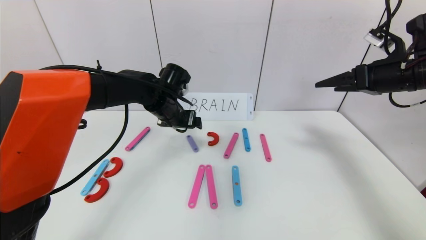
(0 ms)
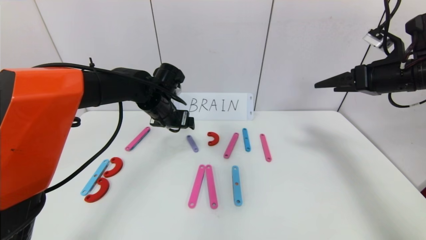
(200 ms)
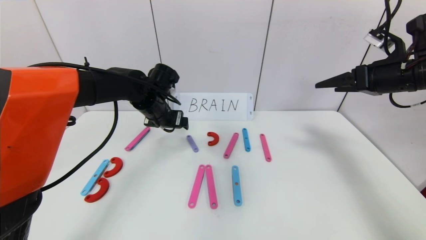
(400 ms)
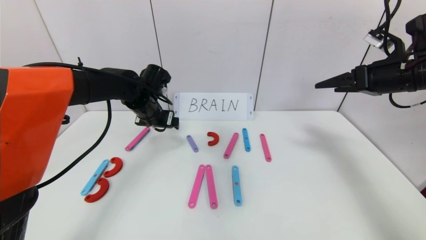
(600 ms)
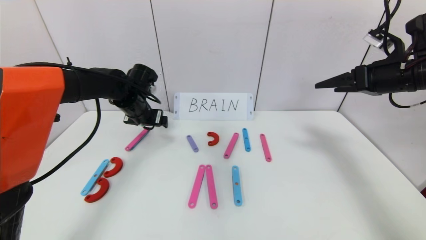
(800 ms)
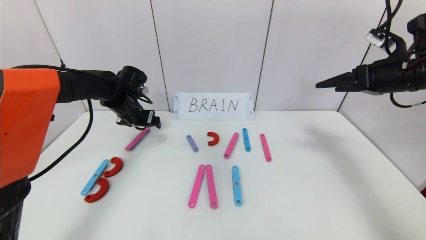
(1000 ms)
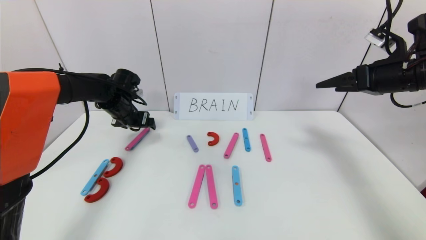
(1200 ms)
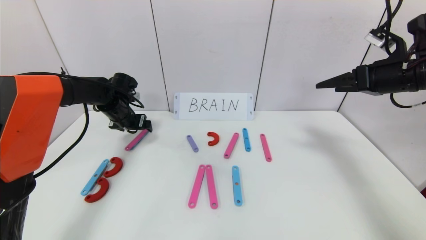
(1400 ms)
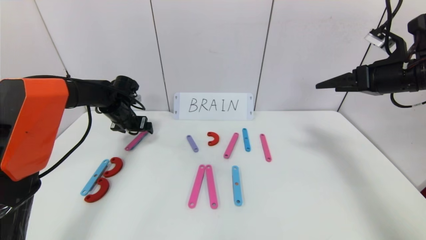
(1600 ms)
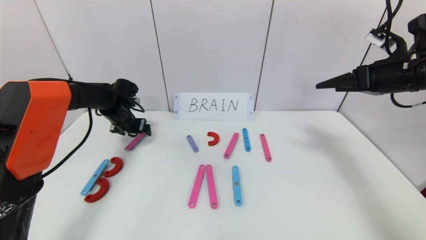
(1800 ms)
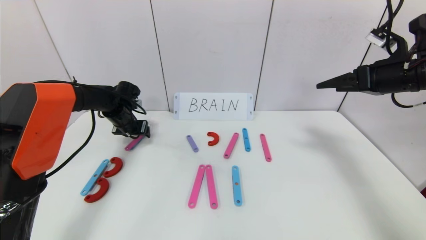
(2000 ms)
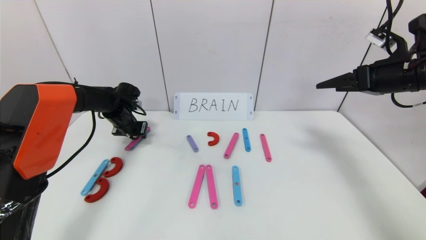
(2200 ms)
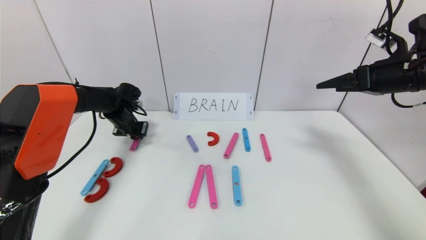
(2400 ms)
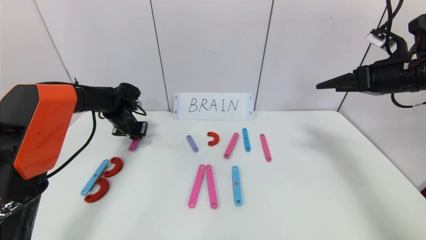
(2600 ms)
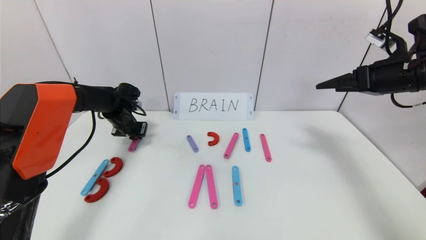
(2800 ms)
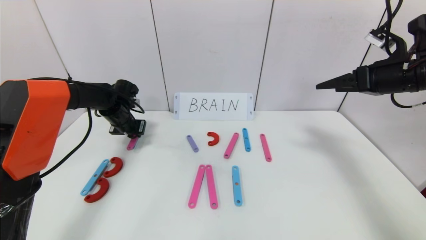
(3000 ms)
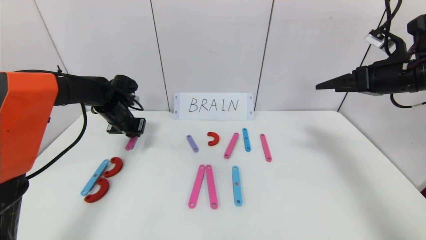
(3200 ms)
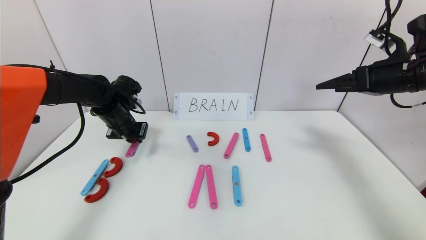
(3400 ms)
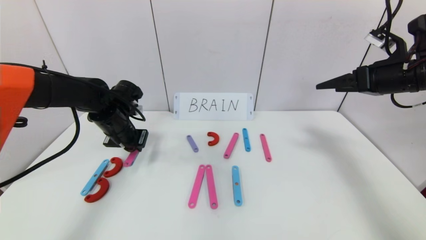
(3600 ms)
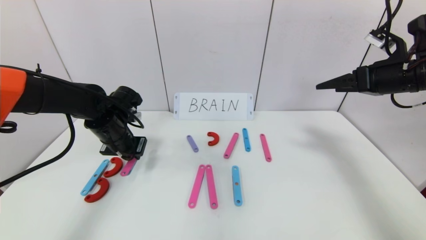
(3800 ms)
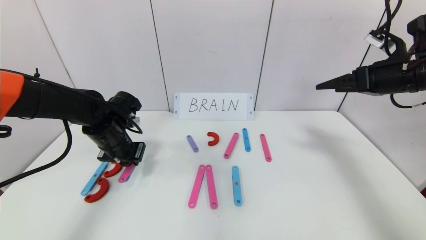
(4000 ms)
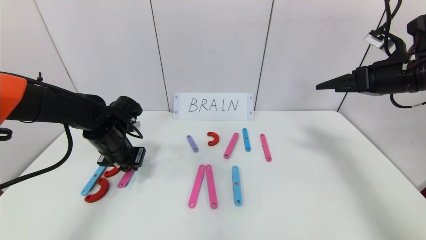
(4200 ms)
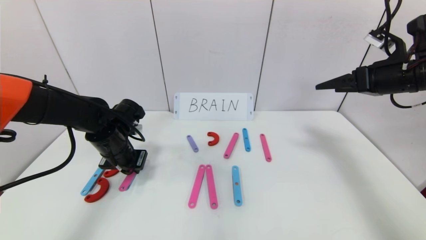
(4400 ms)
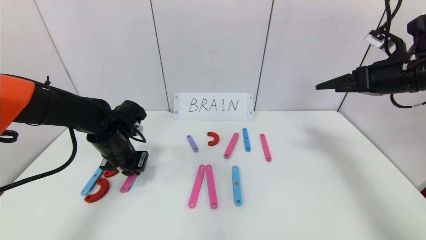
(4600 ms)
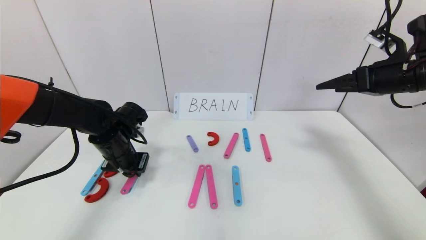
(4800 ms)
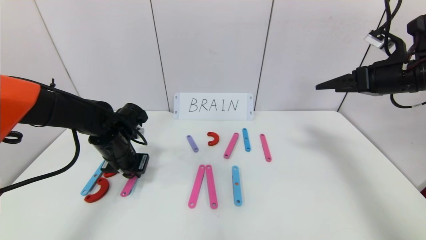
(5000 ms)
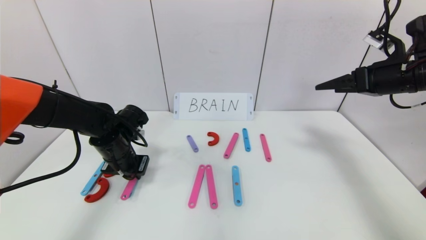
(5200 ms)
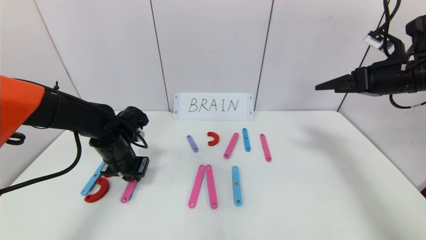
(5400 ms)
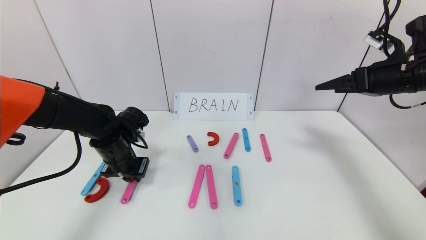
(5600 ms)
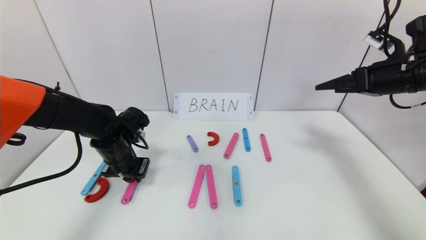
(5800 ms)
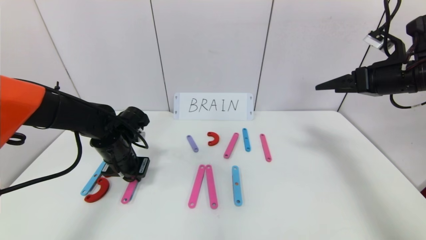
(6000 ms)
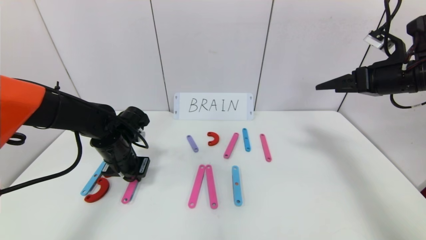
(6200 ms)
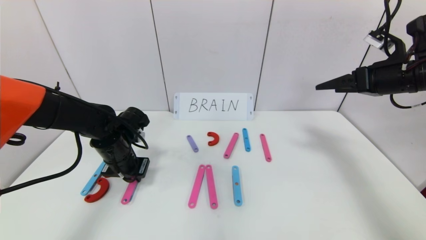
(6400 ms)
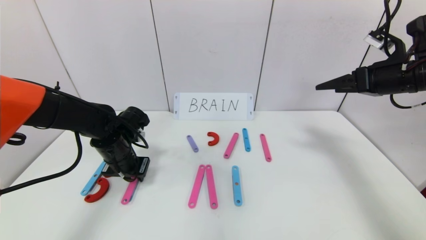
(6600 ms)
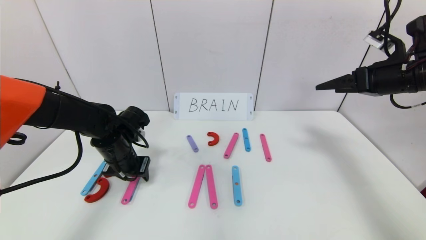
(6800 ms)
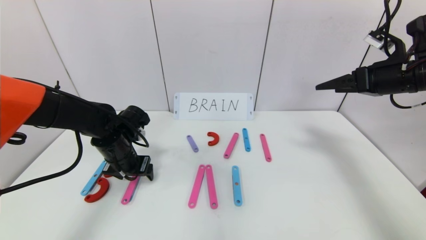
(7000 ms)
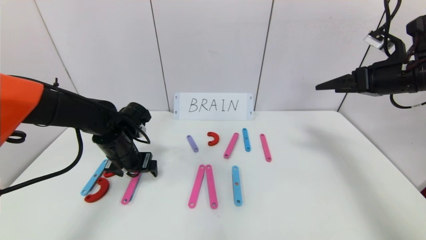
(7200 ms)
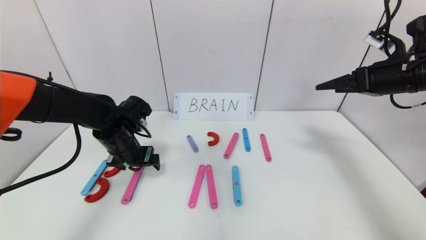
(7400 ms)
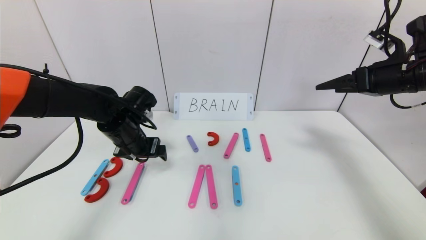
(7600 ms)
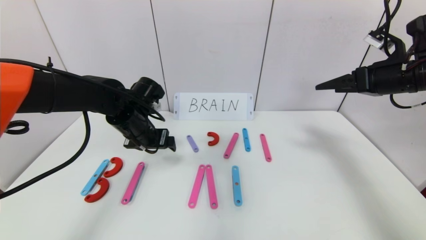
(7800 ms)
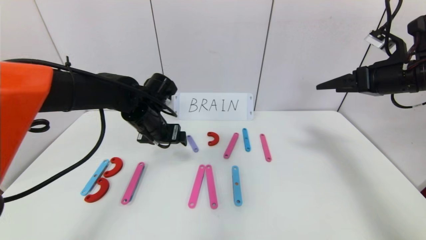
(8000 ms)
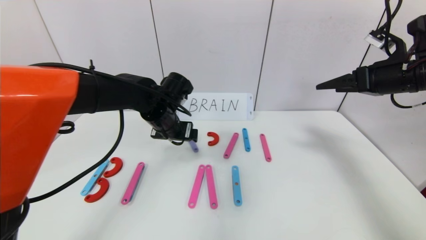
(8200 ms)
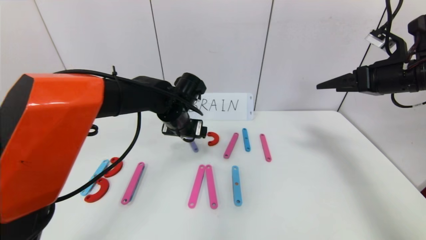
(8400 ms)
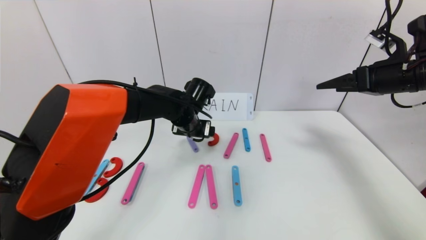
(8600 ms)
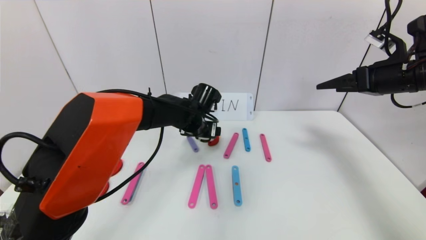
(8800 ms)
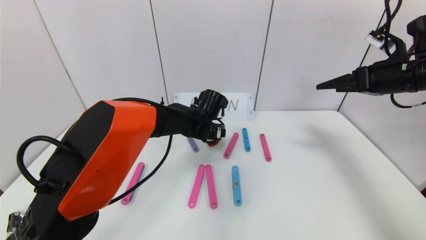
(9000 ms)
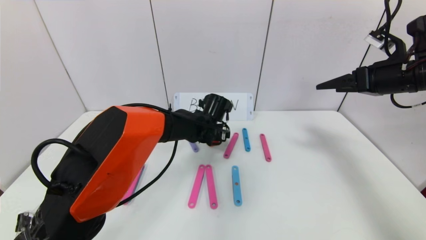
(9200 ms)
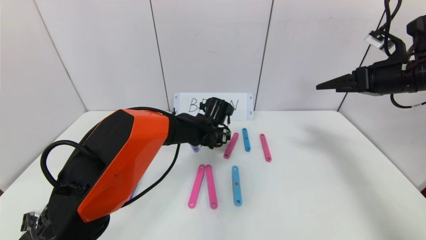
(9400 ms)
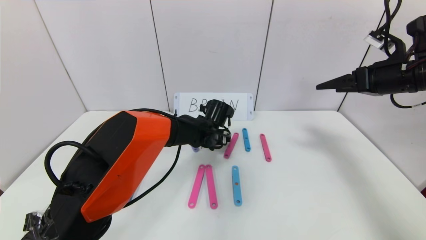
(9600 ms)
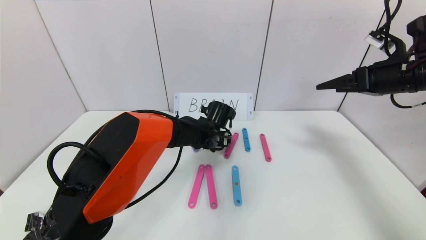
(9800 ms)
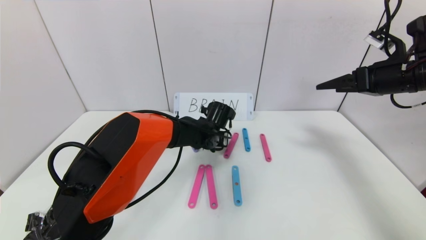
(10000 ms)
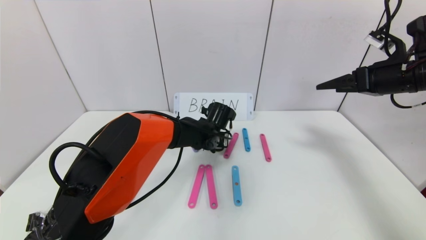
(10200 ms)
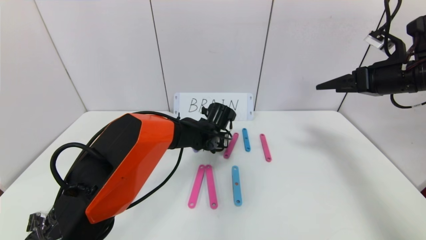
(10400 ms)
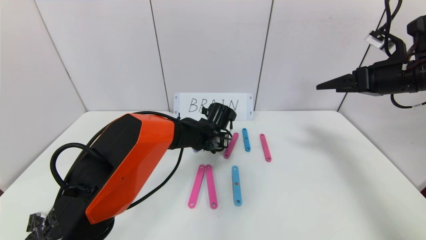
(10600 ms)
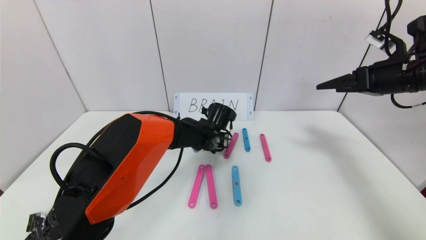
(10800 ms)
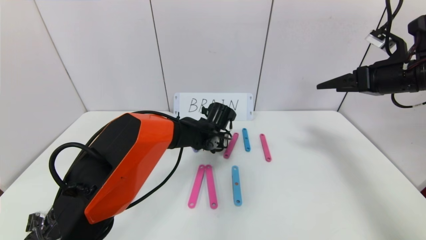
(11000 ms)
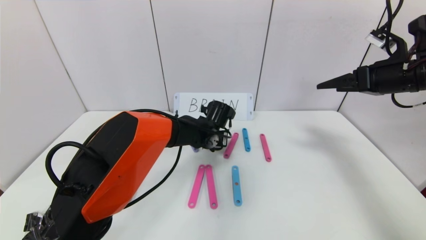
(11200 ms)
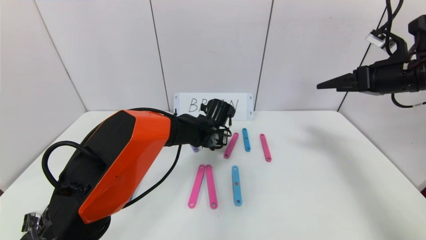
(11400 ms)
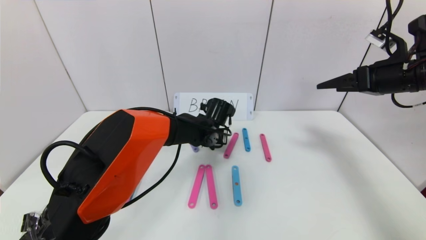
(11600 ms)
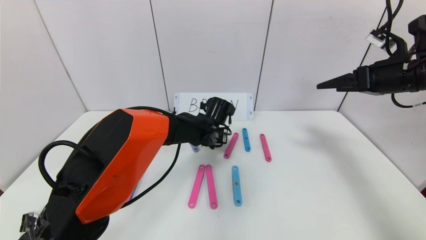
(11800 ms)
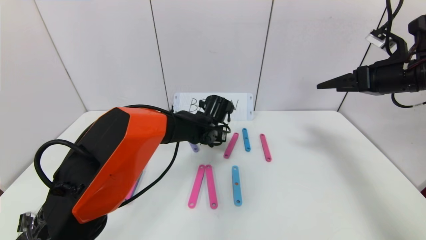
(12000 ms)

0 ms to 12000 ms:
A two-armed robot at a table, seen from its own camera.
Task of the whole recording: rearrange the word baai as brain.
0 ms to 1600 ms: The left gripper shifts roughly 15 cm to the left.
1600 ms to 3000 ms: The left gripper closes.
3000 ms to 4400 ms: The left gripper heads backward, covering approximately 10 cm.
4400 ms to 6000 ms: The grippers stay close to where they were, moving slightly.
6000 ms to 7600 ms: The left gripper ends up roughly 5 cm from where it was, and opens up.
7600 ms to 9000 ms: The left gripper moves to the right and forward, about 20 cm.
9000 ms to 10400 ms: The left gripper closes up.
10400 ms to 12000 ms: The grippers move only a little.

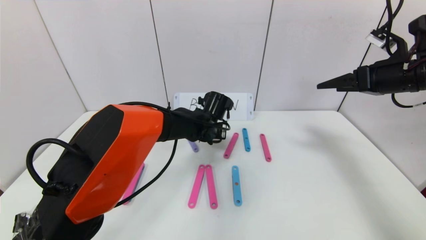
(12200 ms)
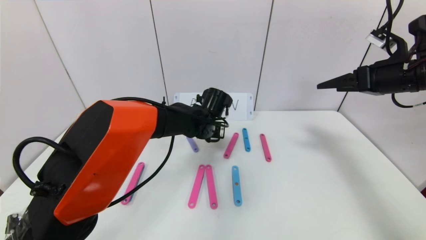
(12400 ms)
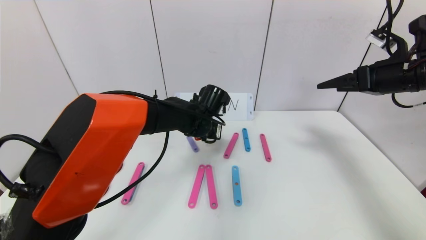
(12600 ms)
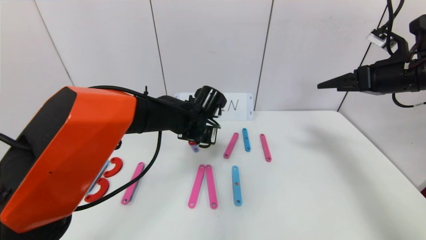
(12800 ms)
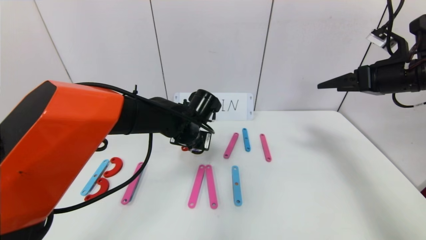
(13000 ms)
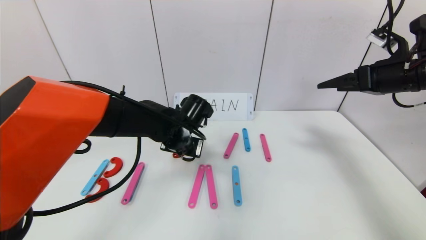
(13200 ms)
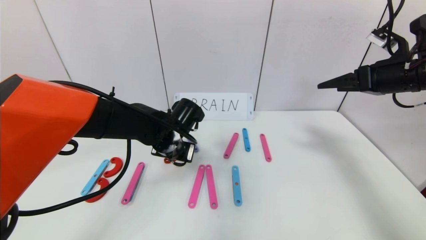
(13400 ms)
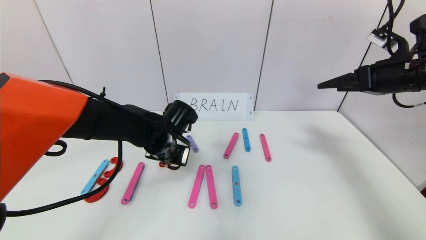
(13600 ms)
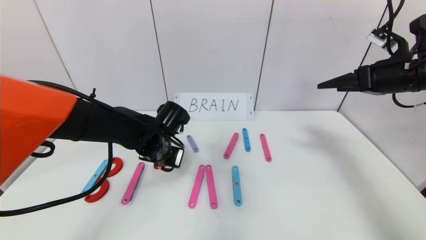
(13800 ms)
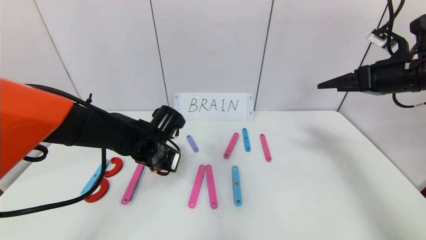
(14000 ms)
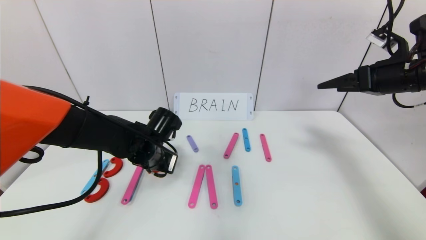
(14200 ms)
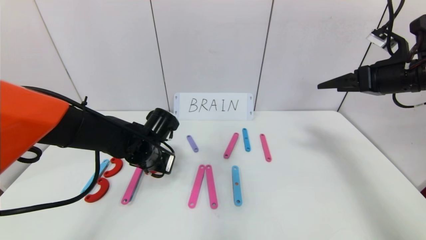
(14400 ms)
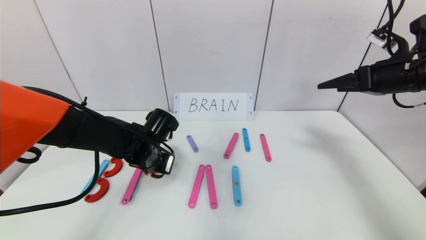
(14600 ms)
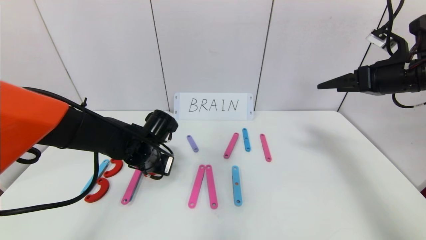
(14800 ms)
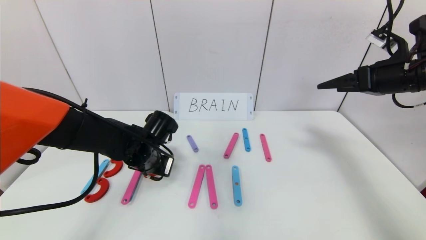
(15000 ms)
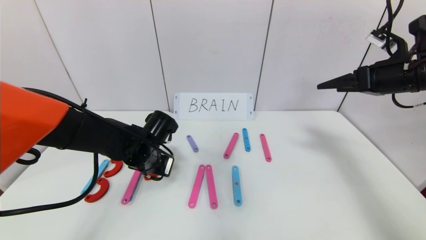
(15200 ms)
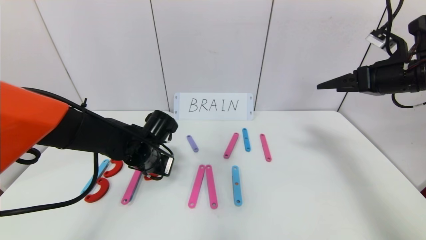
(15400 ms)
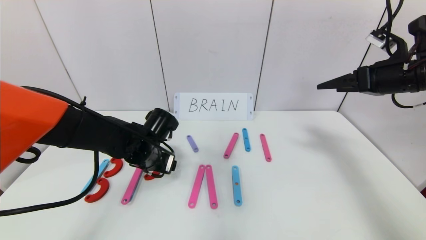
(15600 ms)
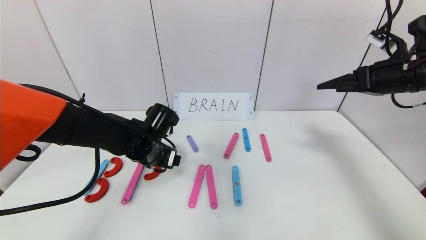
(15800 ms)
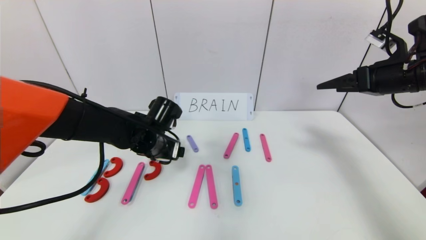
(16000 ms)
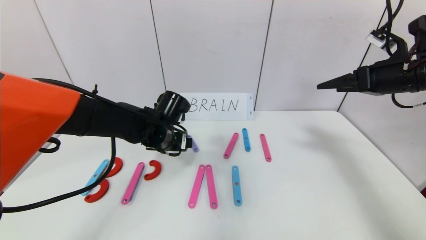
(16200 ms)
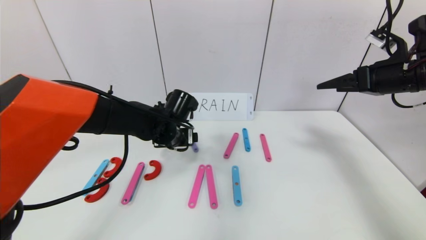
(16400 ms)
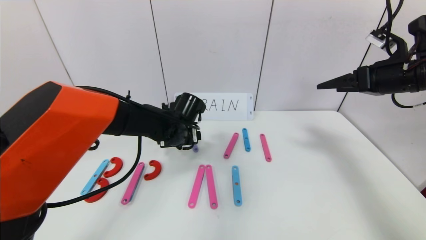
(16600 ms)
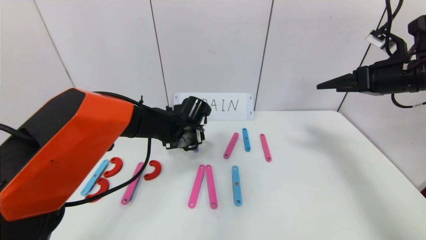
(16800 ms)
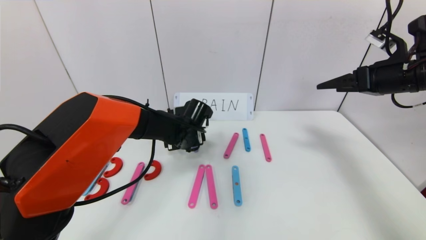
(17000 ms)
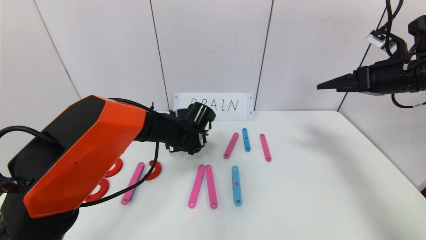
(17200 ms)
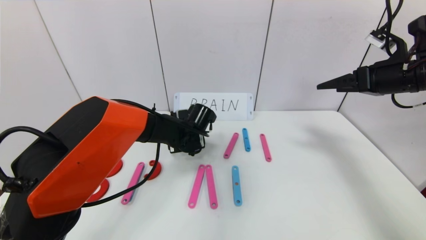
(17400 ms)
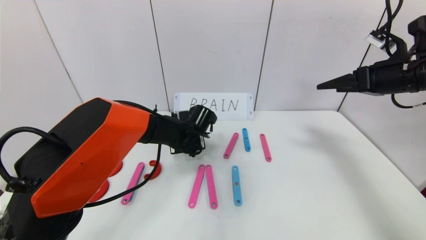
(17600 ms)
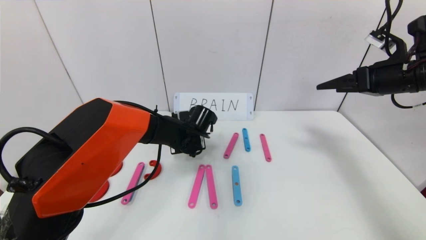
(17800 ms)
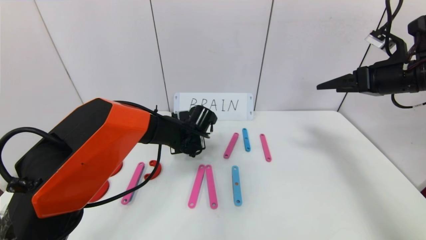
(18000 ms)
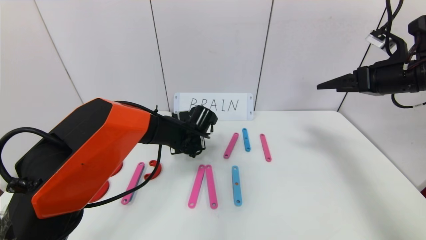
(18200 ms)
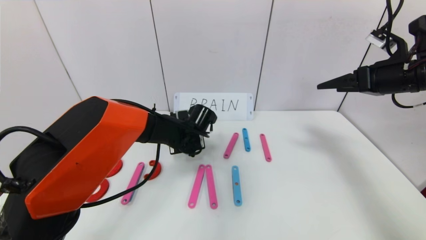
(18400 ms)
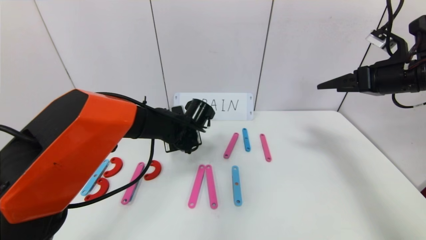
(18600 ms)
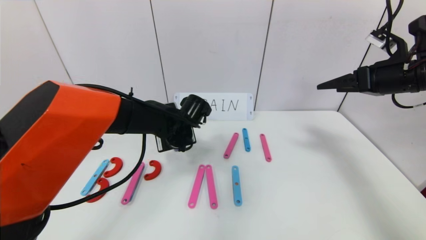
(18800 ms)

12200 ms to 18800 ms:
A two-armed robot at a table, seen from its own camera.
Task of the whole recording: rearrange the word baai as brain.
12200 ms to 13800 ms: The left gripper goes roughly 15 cm to the left and backward.
13800 ms to 15400 ms: The left gripper opens up.
15400 ms to 17200 ms: The left gripper travels to the right and forward by approximately 10 cm, and opens.
17200 ms to 18800 ms: The left gripper closes its fingers.
